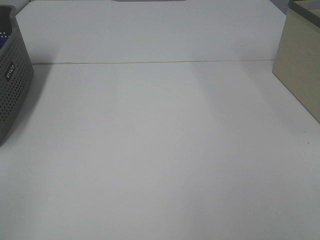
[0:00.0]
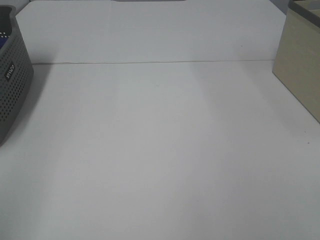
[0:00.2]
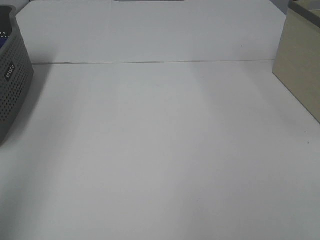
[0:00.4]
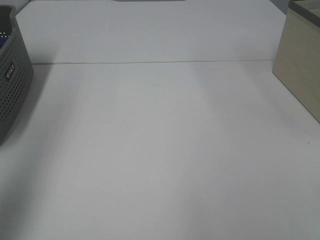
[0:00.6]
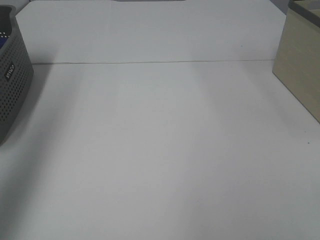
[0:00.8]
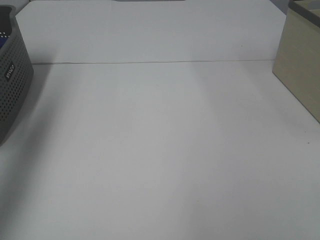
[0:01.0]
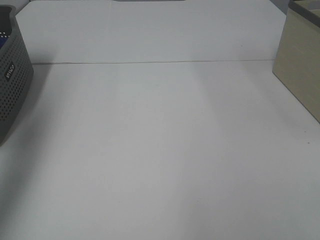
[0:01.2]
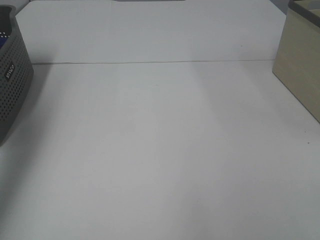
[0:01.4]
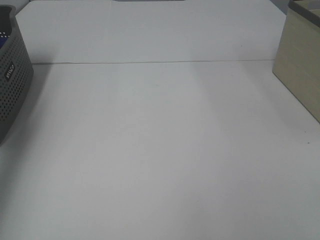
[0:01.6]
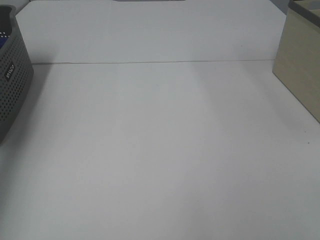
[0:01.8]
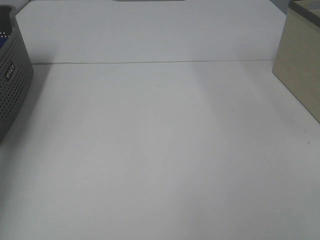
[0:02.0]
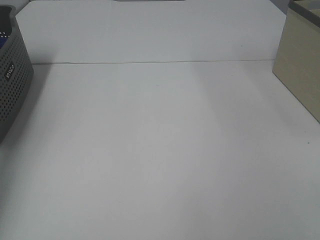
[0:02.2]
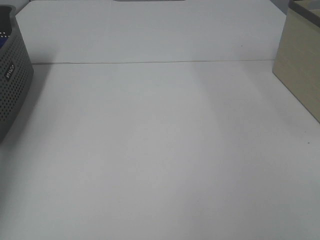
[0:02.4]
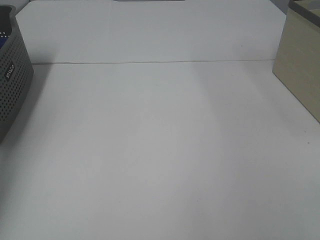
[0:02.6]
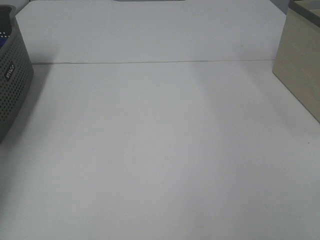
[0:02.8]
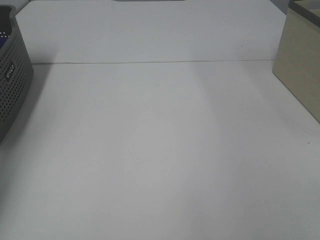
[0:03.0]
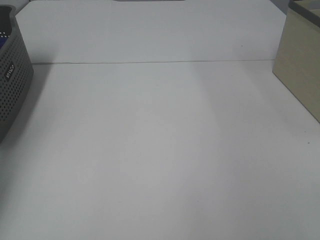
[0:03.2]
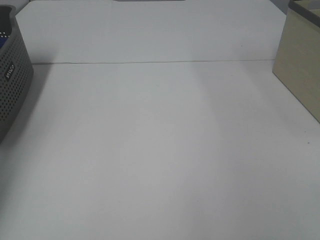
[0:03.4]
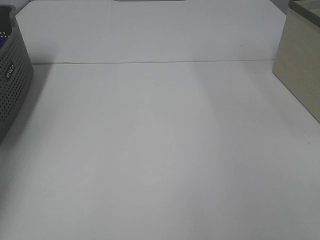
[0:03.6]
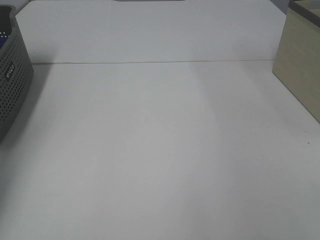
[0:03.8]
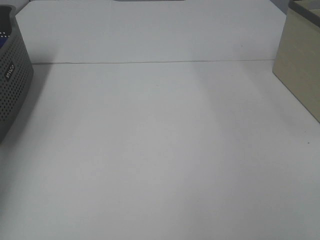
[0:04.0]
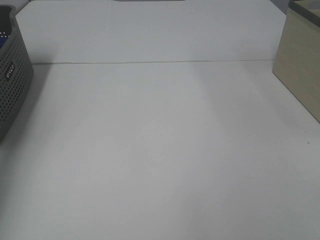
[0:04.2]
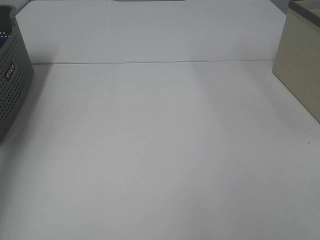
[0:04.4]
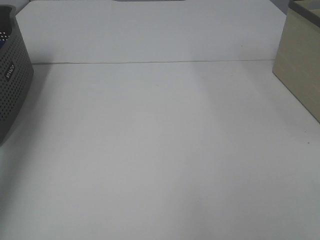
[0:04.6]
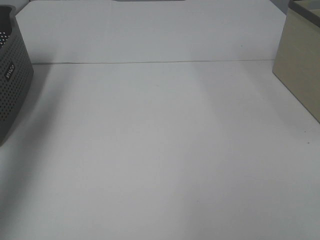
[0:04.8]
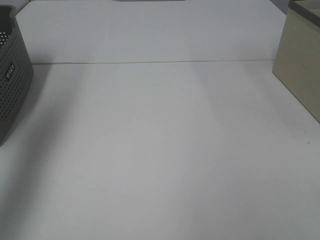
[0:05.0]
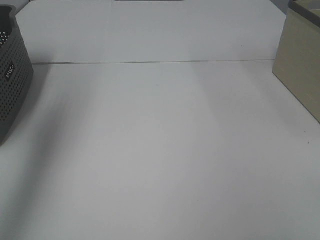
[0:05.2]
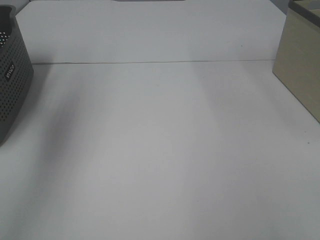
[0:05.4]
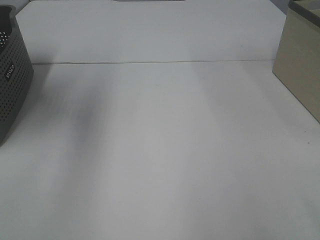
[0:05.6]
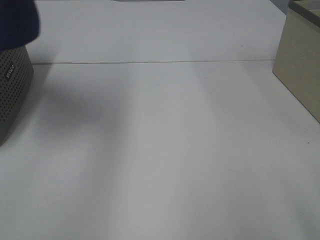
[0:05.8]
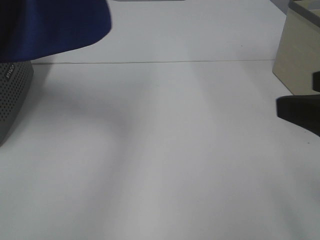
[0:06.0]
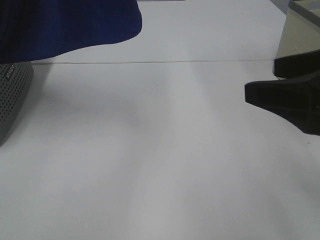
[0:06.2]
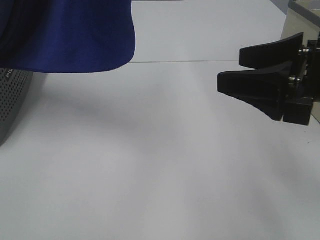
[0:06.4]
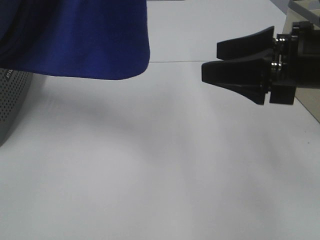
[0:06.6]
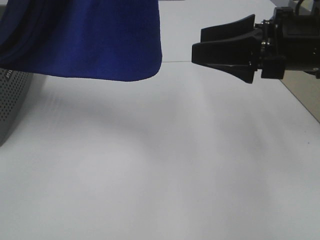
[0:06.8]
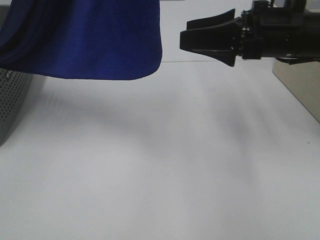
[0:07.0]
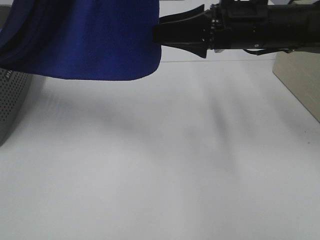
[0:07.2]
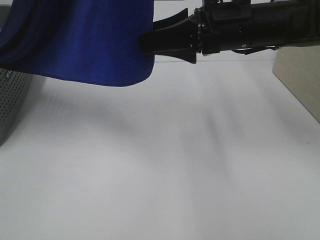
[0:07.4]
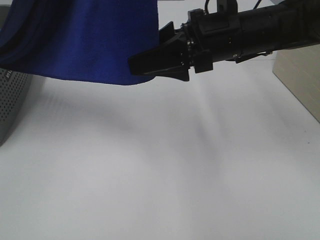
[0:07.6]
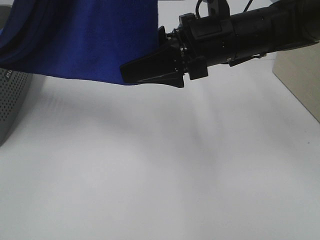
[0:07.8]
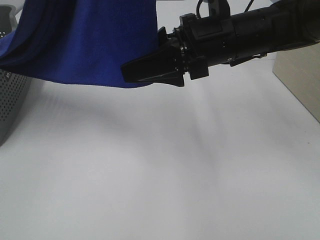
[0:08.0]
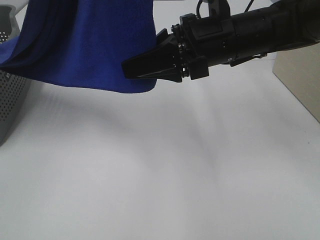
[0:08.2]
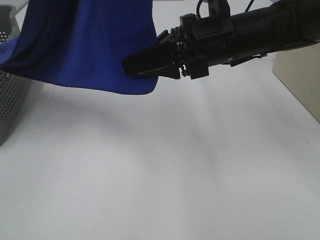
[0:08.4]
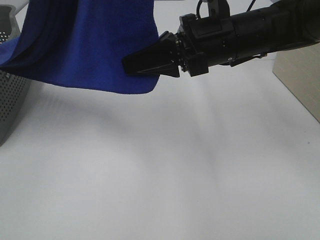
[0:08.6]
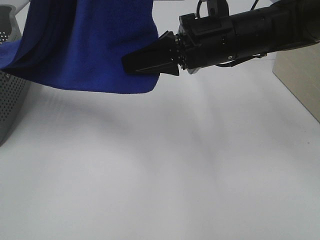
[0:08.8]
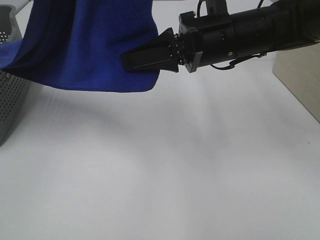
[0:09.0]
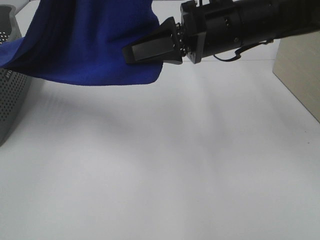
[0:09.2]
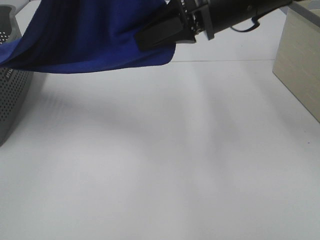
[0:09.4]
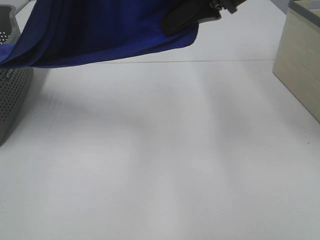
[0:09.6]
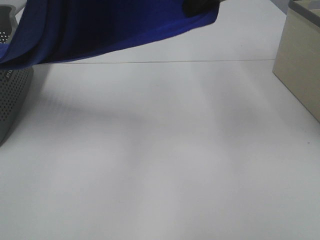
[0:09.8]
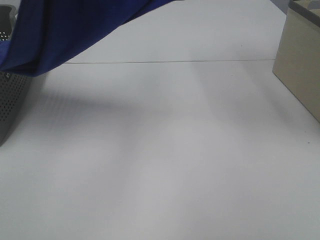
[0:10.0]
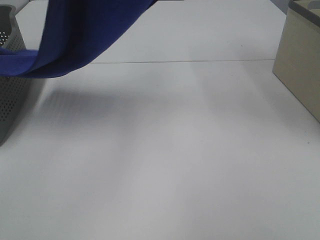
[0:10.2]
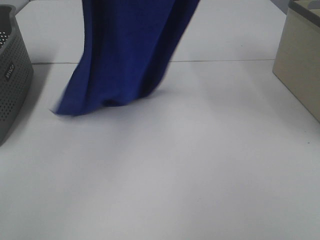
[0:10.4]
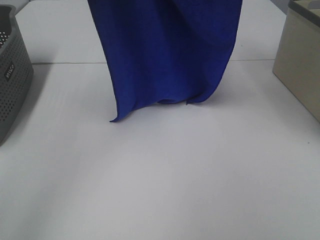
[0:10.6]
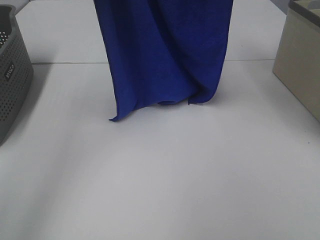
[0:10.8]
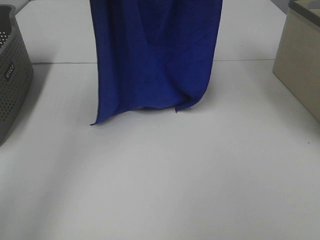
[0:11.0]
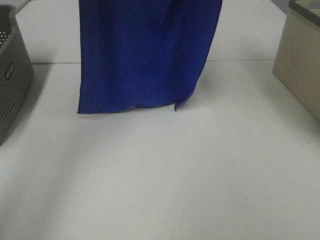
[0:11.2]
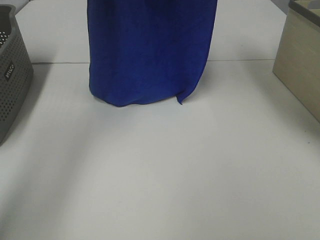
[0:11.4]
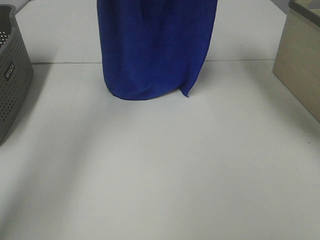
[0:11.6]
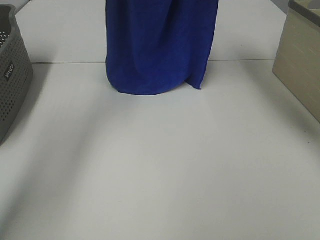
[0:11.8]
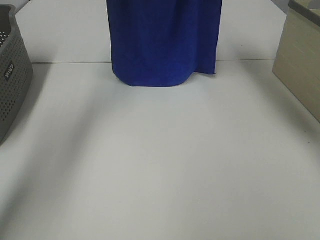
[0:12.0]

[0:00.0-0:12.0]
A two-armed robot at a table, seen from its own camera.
Task of the whole recording: Remove the towel and place it.
Step, 0:05.2 to 0:09.0: Right hand: grab a corner of the blue towel and straighten it.
0:00.0 to 0:01.6: The left gripper moves forward, about 35 cm.
0:04.4 to 0:06.0: The left gripper moves to the right, upward and backward, some 35 cm. Meanwhile the right gripper moves forward, some 15 cm.
0:06.0 to 0:07.6: The left gripper travels to the right by roughly 5 cm; the right gripper shifts about 25 cm forward and to the left.
0:07.6 to 0:09.0: The right gripper closes up.
0:09.0 to 0:10.4: The right gripper goes roughly 25 cm upward; the left gripper travels forward and to the left by approximately 10 cm.
0:10.4 to 0:12.0: Both grippers travel together forward, approximately 15 cm.

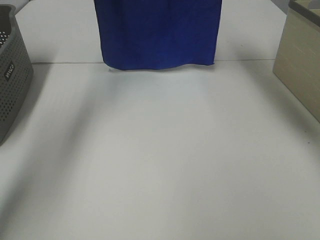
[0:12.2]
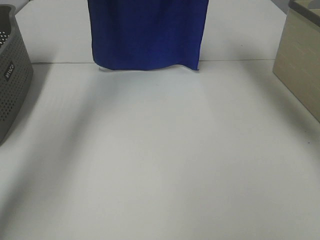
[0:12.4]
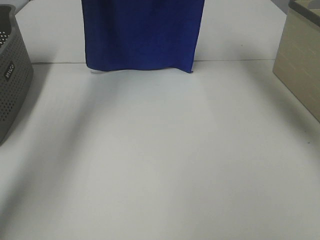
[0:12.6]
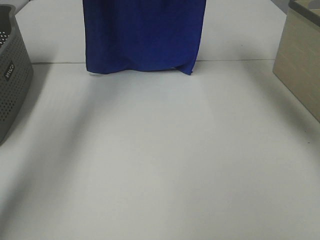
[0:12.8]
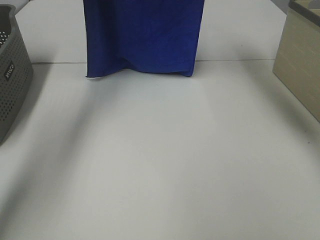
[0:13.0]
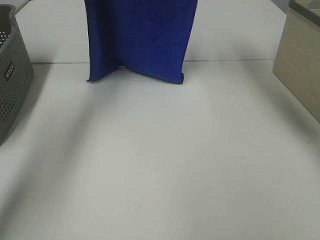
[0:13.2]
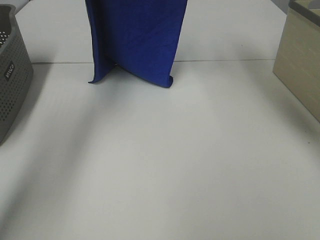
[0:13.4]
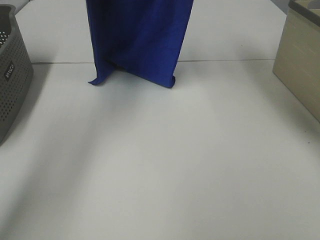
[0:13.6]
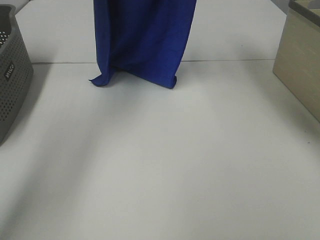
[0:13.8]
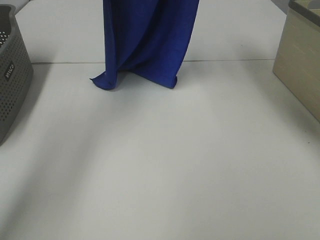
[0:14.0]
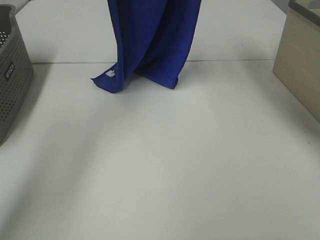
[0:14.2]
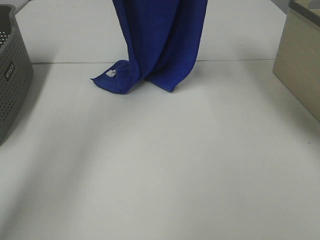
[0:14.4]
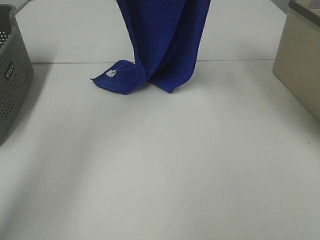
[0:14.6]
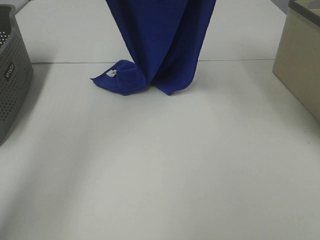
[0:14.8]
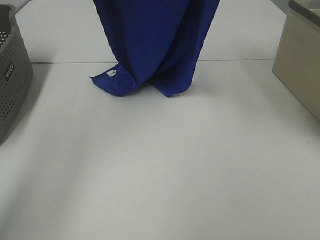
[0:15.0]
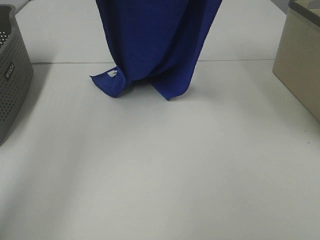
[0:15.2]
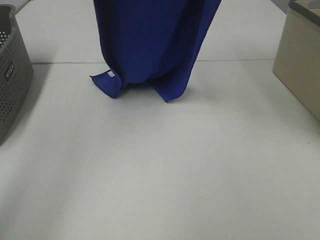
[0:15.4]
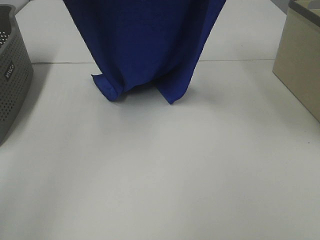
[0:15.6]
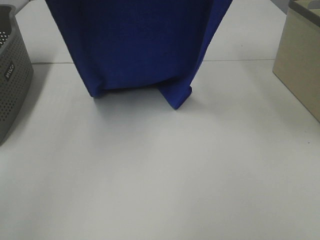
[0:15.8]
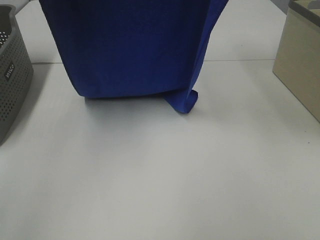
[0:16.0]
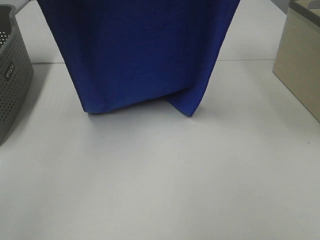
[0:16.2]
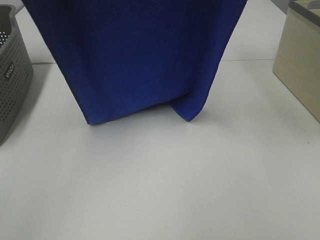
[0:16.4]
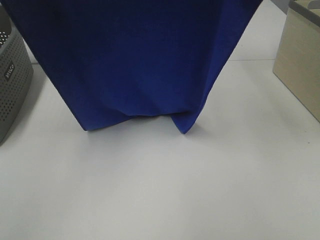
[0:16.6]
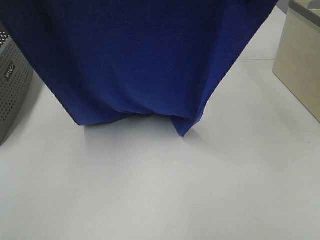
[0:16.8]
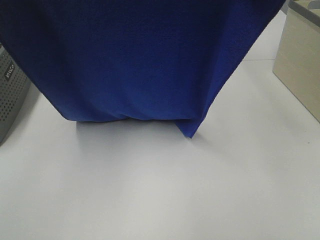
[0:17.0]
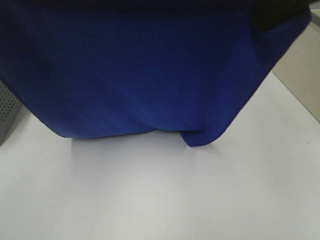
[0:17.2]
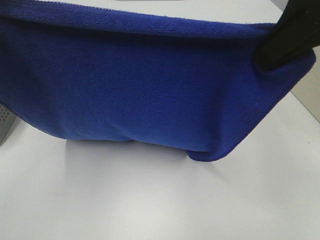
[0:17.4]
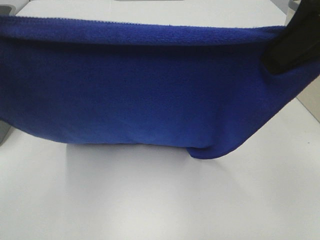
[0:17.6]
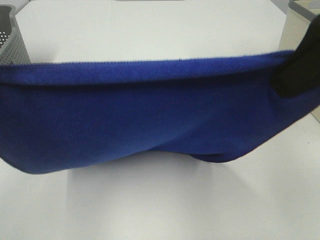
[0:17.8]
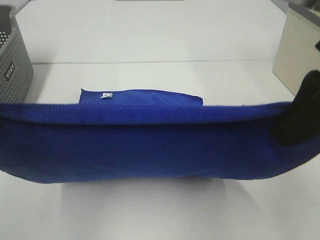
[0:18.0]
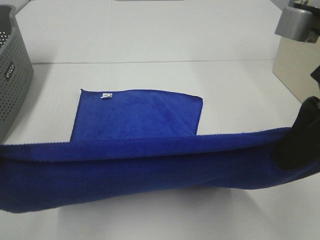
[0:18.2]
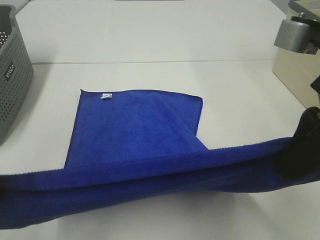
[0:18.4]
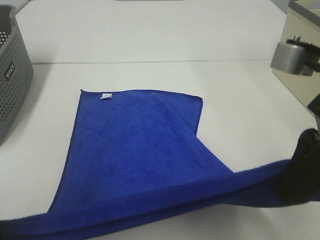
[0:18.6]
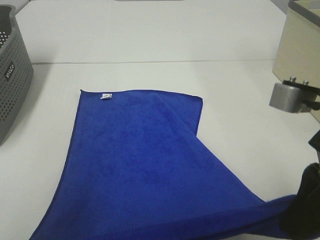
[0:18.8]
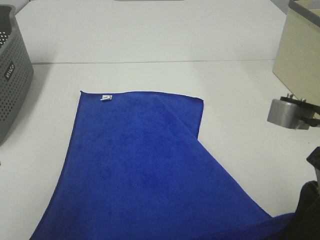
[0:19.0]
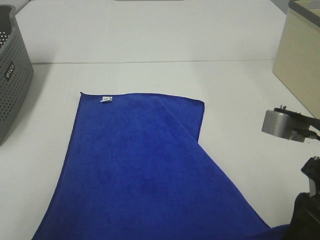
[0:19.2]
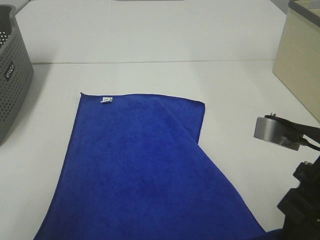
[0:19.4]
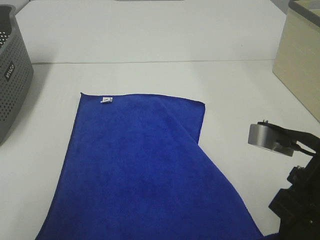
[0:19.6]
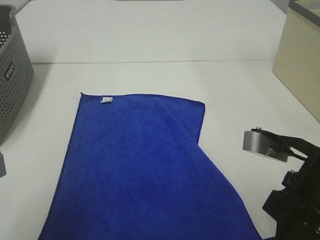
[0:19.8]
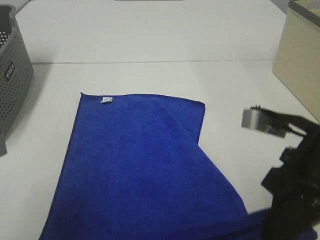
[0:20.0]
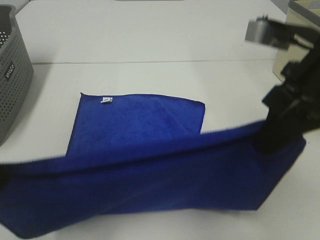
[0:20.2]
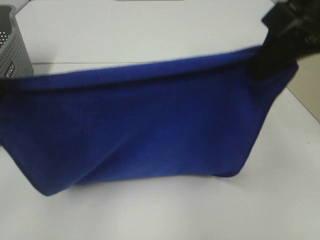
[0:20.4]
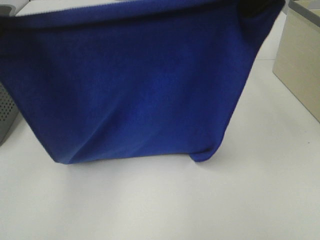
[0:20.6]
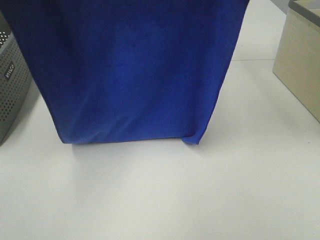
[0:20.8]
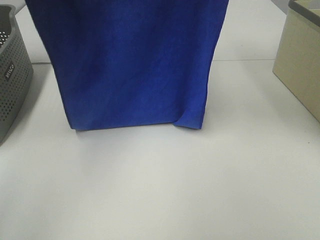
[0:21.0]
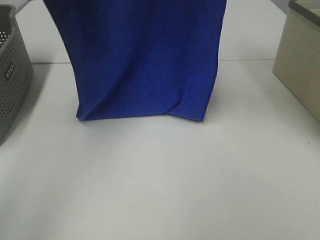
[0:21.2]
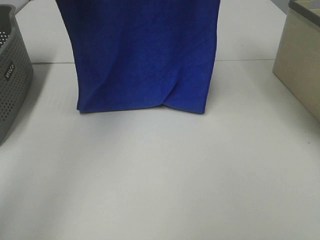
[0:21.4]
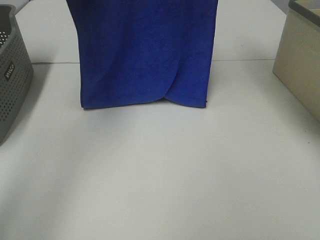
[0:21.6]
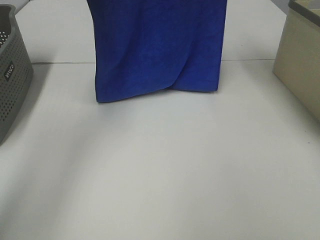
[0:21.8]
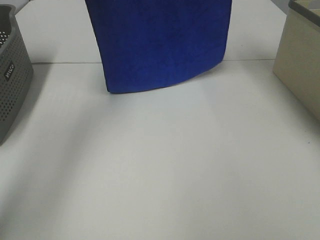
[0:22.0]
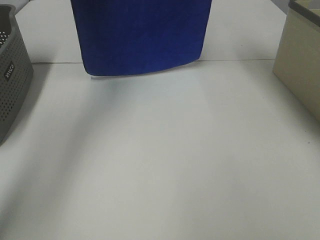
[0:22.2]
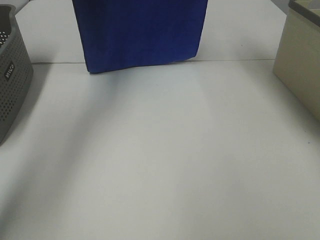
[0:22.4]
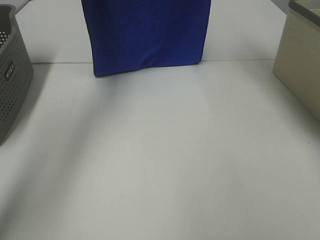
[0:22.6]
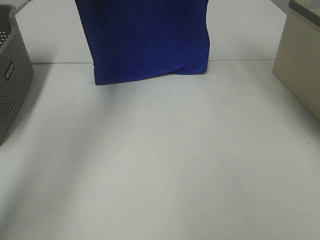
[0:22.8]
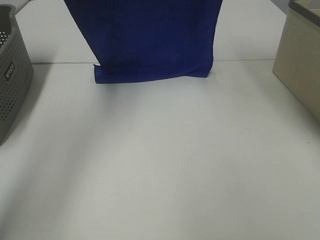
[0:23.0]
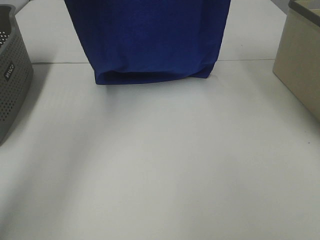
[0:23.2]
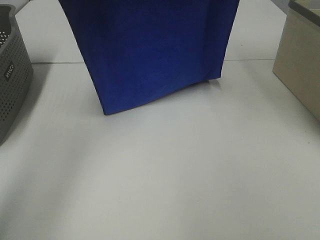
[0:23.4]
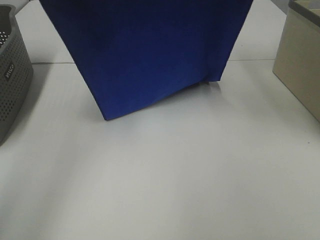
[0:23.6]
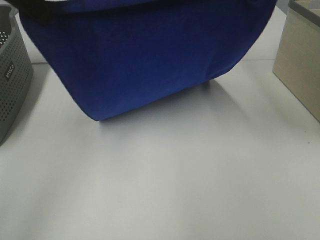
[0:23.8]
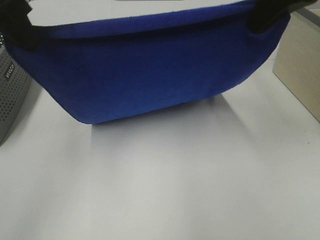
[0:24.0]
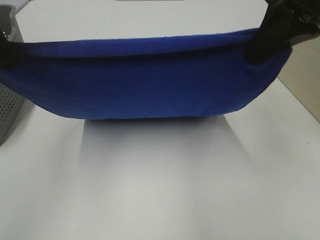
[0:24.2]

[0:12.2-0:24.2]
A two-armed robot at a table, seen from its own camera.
Task of the whole recording: Remove the towel and place it.
Step, 0:12.2 to 0:22.8: Left hand: spread the blue towel flat on the table.
Step, 0:12.2 to 0:22.8: Right hand: spread the blue towel flat on the table.
0:13.8 to 0:15.2: Both grippers move backward, about 10 cm.
0:15.2 to 0:16.6: The left gripper moves backward, roughly 15 cm. Meanwhile the right gripper heads backward, covering approximately 10 cm.
0:16.6 to 0:18.2: Both grippers move downward and backward, roughly 20 cm.
0:18.2 to 0:19.8: Both grippers move downward, roughly 10 cm.
0:19.8 to 0:21.2: Both grippers move upward and forward, about 35 cm.
0:21.2 to 0:22.6: Both grippers travel together forward, approximately 10 cm.
0:22.6 to 0:24.2: The grippers both shift backward and downward by approximately 25 cm.
